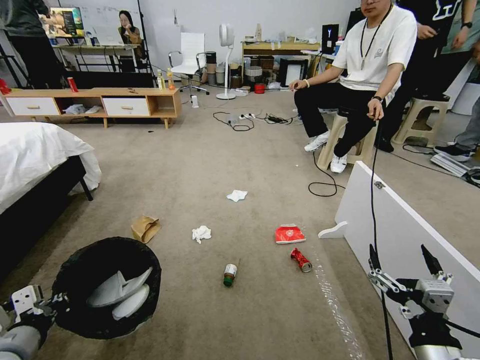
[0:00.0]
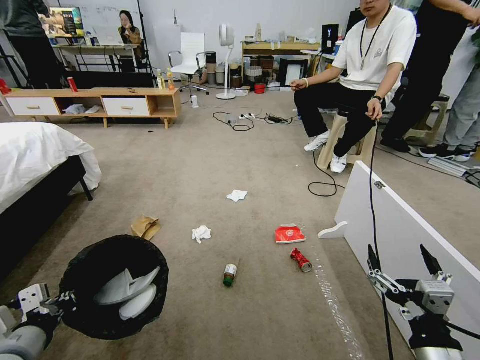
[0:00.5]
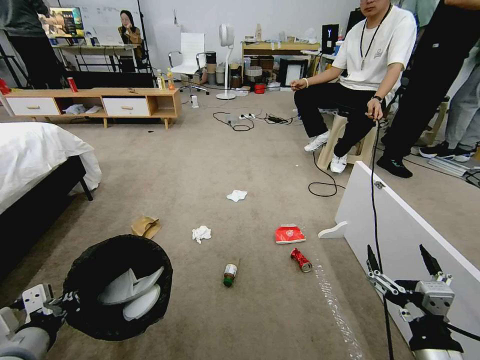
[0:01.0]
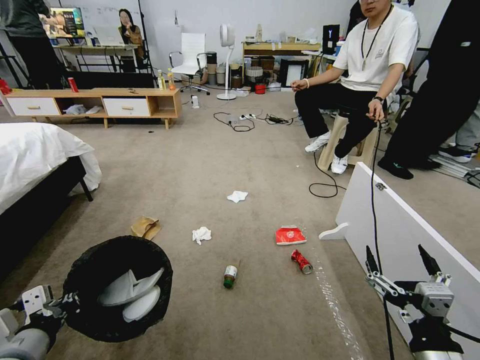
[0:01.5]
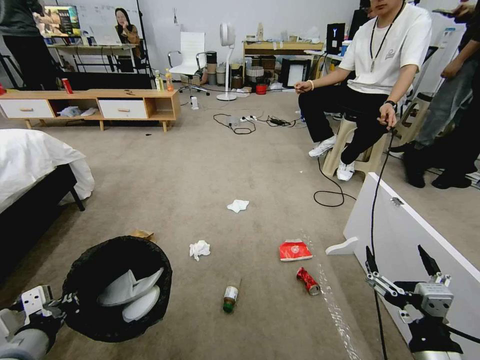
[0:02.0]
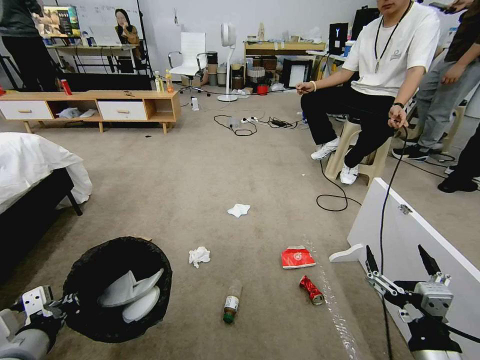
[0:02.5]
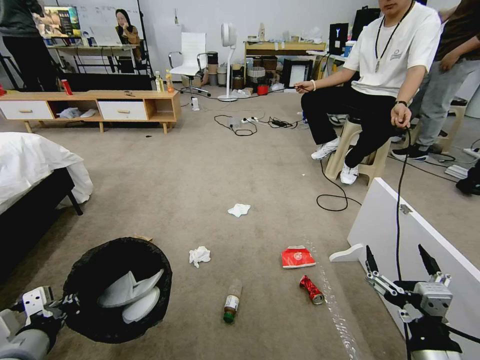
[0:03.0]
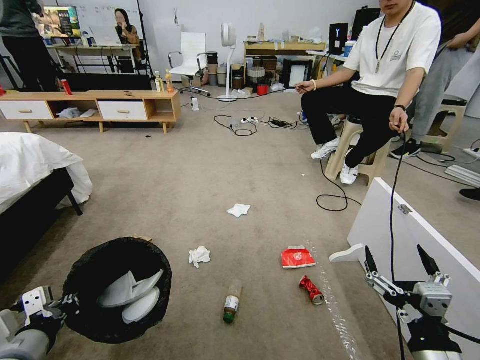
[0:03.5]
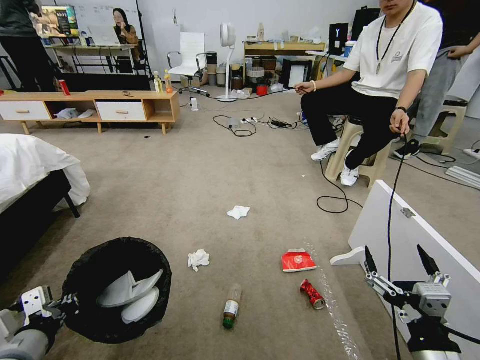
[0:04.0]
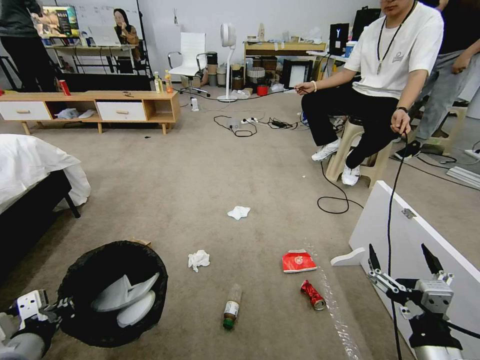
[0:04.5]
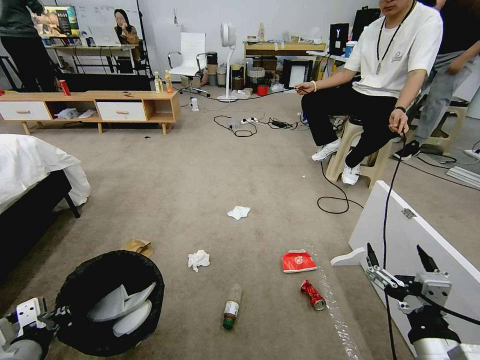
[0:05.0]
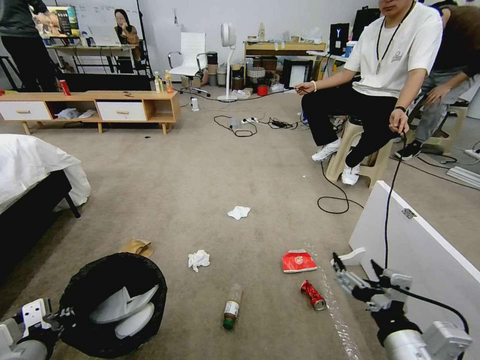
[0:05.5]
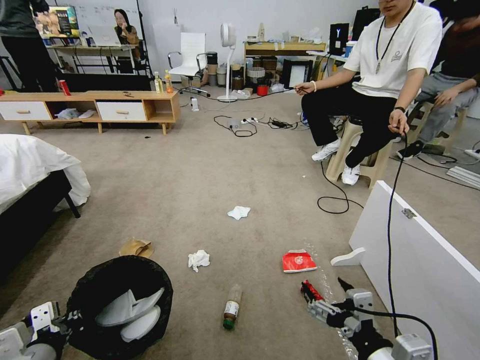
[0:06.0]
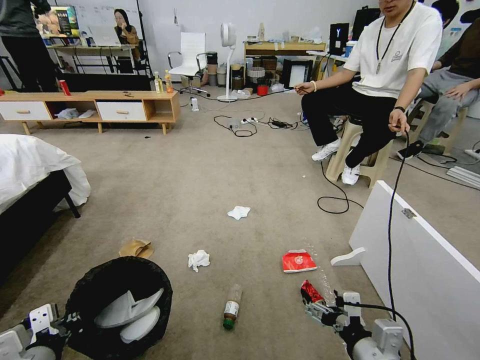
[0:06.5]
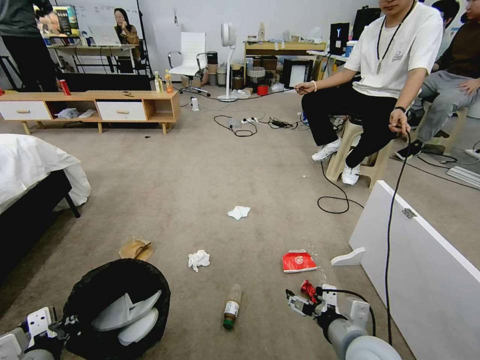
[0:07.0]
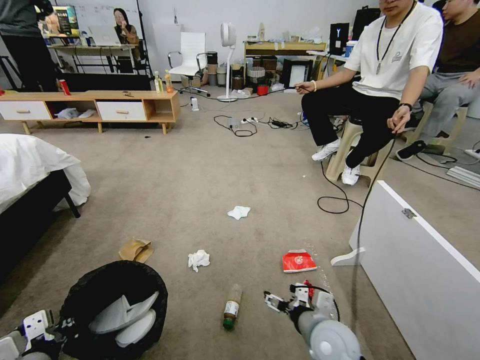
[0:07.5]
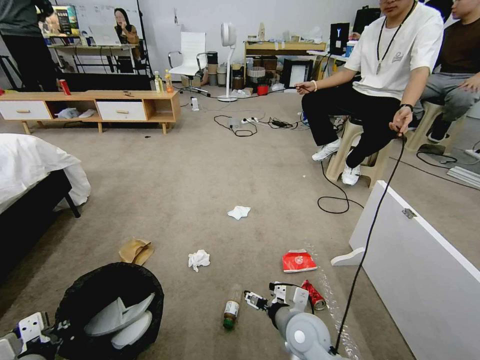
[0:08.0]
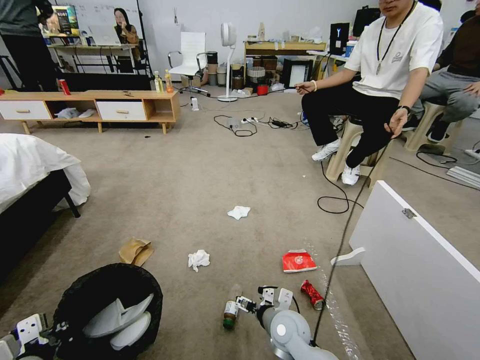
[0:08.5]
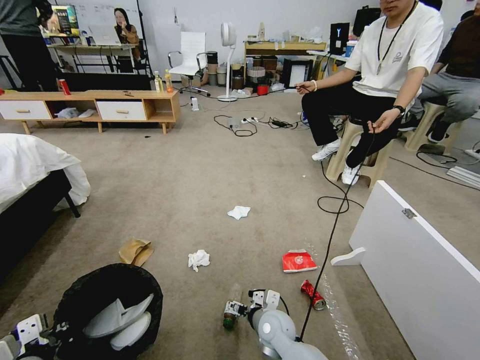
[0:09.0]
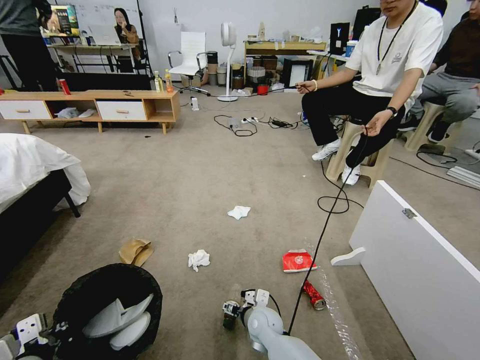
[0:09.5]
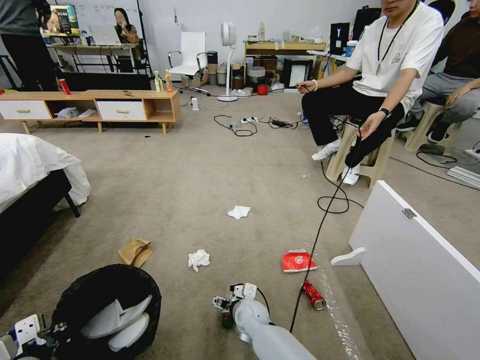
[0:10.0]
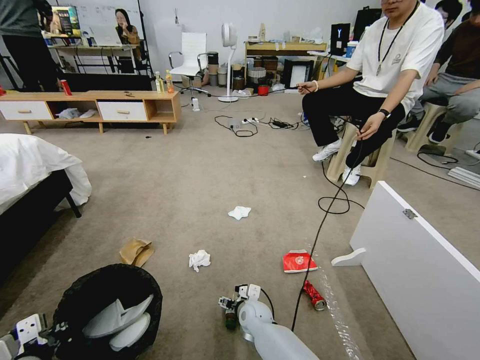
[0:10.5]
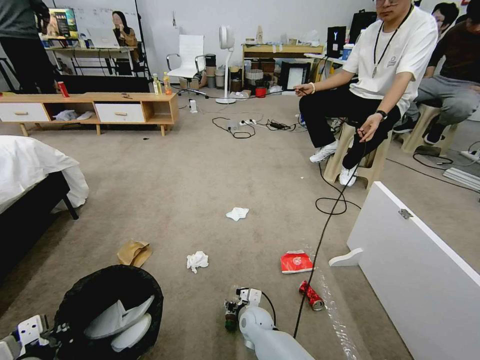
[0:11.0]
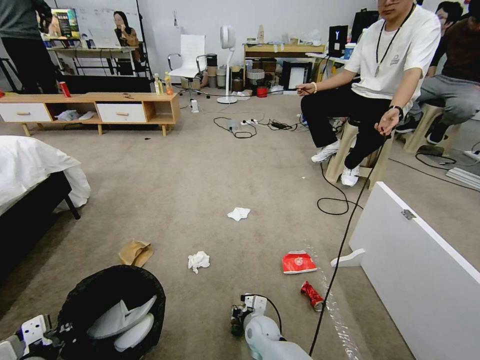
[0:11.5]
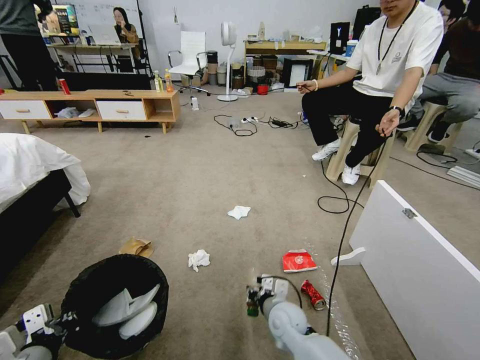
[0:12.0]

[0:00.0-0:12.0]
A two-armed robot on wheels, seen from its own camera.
Task of the whole recording: Pick up the trash bin and place the garbage on the floor into it.
0:04.0 to 0:06.0: The right gripper ends up about 5 cm from where it was; the left gripper closes its fingers.
0:06.0 to 0:08.0: The right gripper moves forward, downward and to the left, approximately 25 cm.
0:08.0 to 0:10.0: The right gripper moves downward, to the left and forward, some 20 cm.
0:10.0 to 0:12.0: The right gripper travels to the right by roughly 10 cm, and closes.

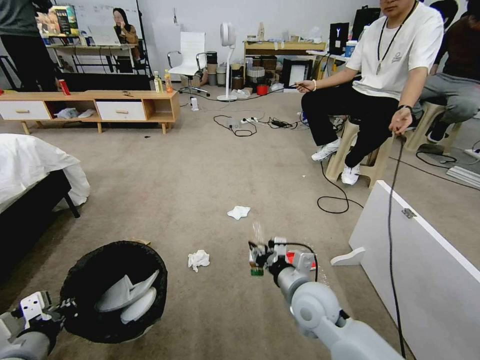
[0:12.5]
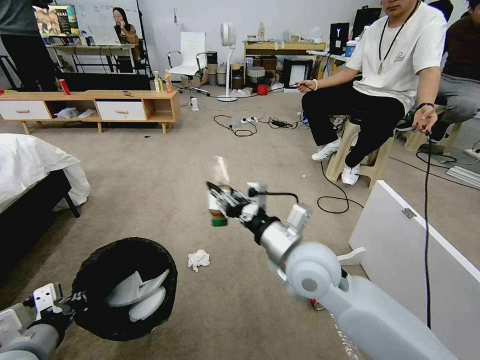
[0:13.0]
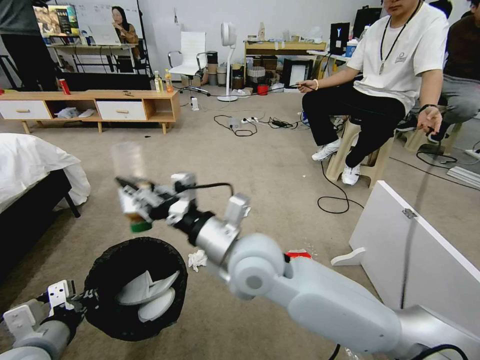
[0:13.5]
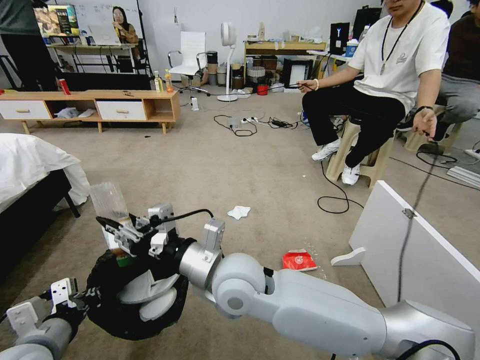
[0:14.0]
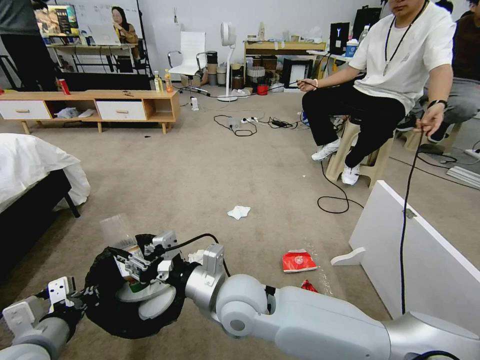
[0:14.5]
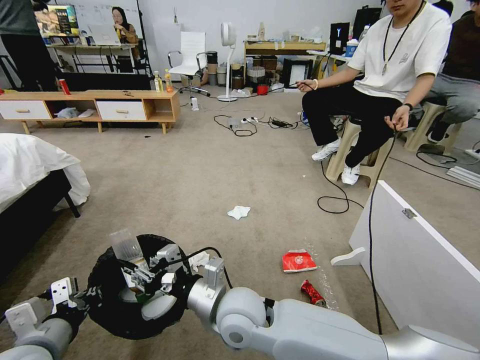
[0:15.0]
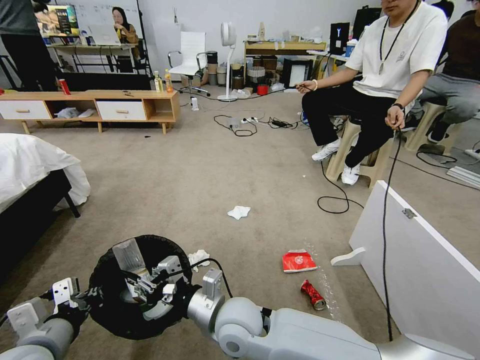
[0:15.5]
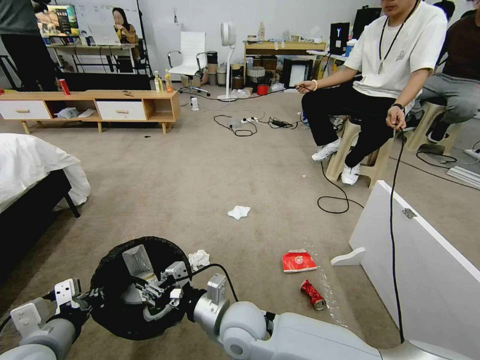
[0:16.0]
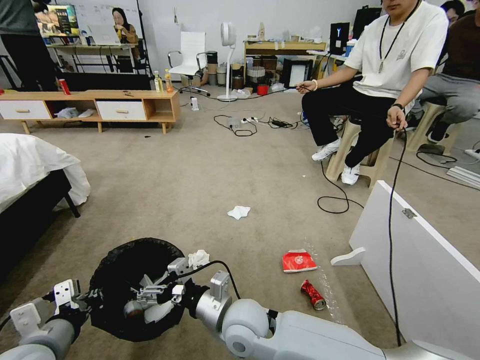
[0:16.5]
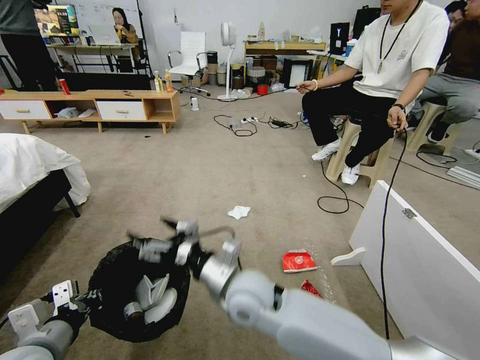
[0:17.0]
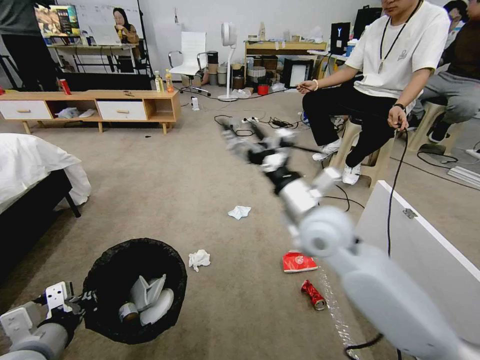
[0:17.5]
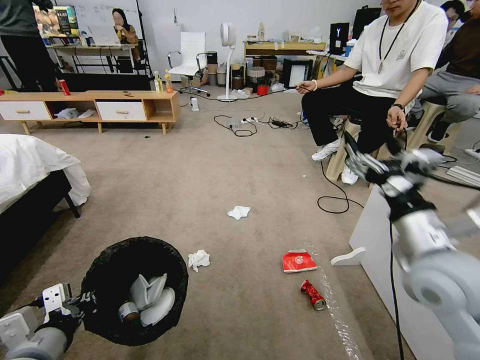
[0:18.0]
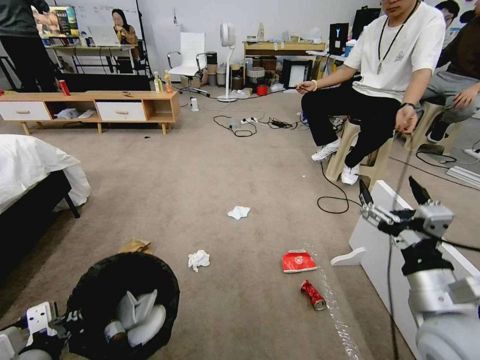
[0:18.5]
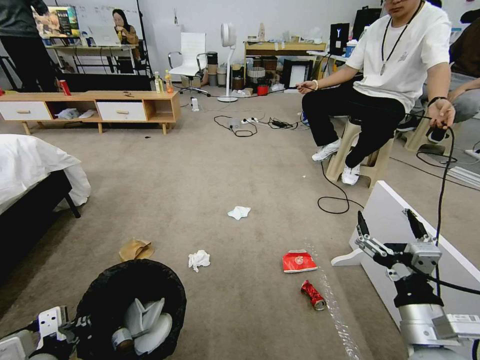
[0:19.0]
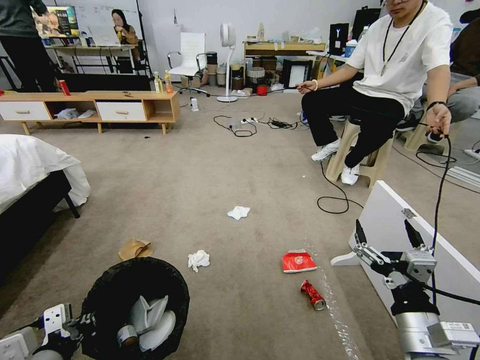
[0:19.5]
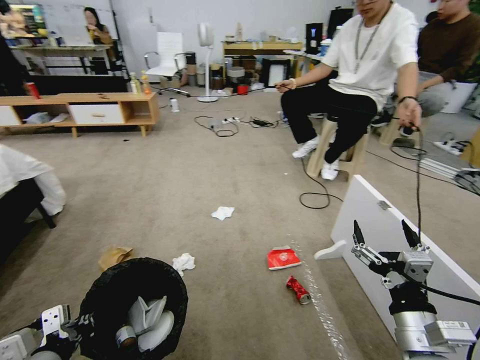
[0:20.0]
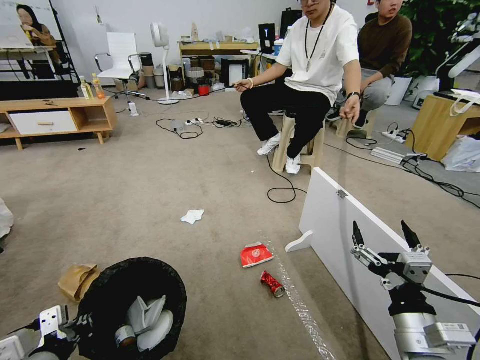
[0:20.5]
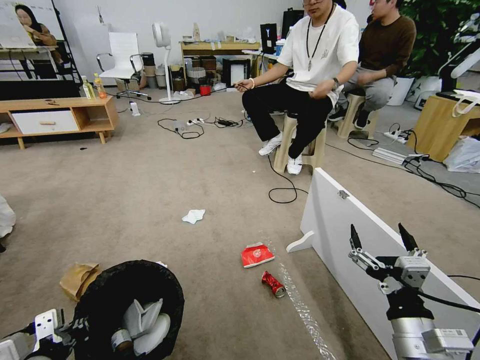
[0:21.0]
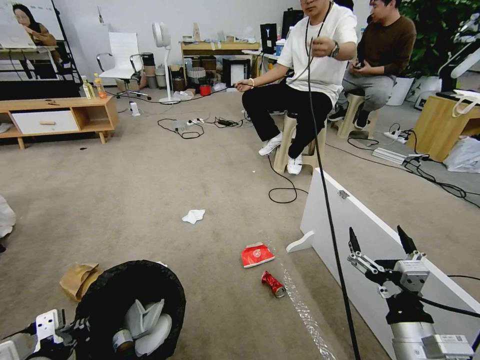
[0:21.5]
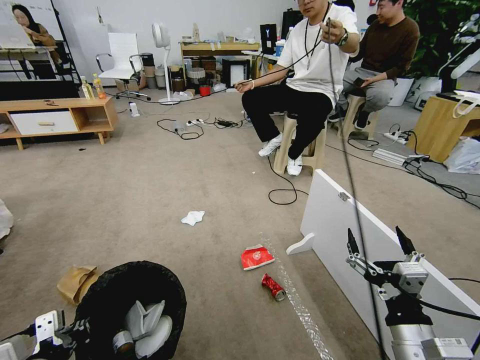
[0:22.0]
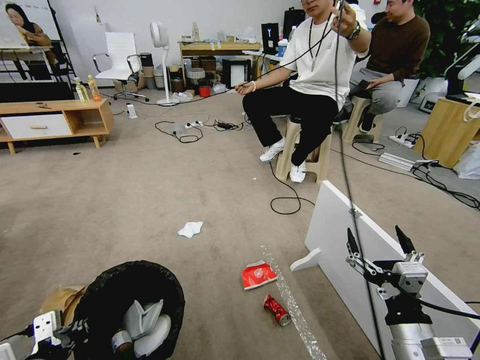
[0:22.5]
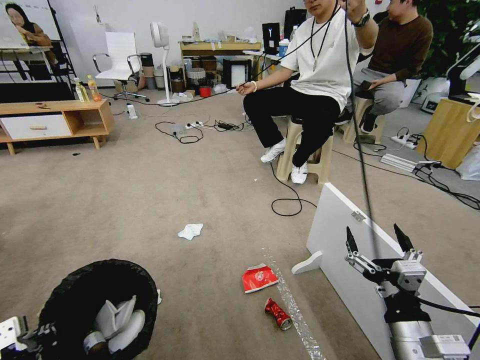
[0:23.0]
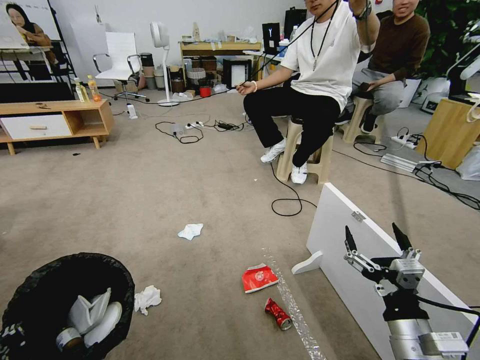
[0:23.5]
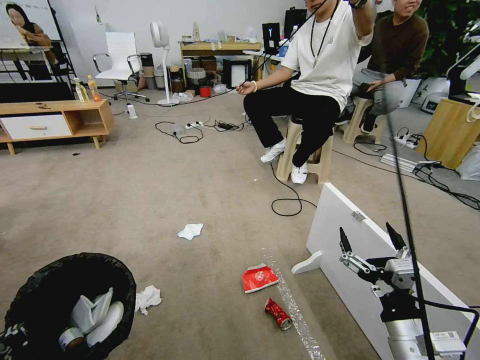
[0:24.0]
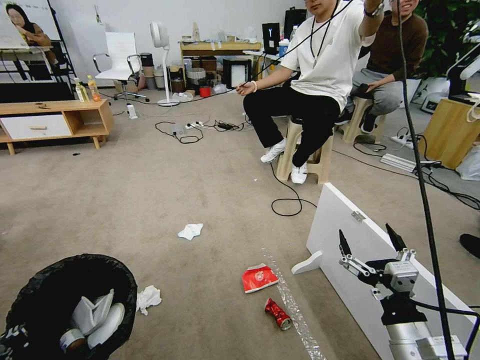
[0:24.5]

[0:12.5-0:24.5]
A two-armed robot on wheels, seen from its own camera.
Task of the whole recording: Pick up the trash bin and place the garbage on the floor into it.
0:12.5 to 0:14.5: The right gripper heads to the left and upward, covering some 20 cm.
0:14.5 to 0:16.5: The right gripper moves downward, approximately 10 cm, and opens.
0:16.5 to 0:18.5: The left gripper goes some 5 cm backward. The right gripper travels to the right and upward by some 30 cm.
0:18.5 to 0:20.5: The right gripper shifts about 5 cm downward.
0:22.5 to 0:24.5: The left gripper is displaced to the left by roughly 5 cm.

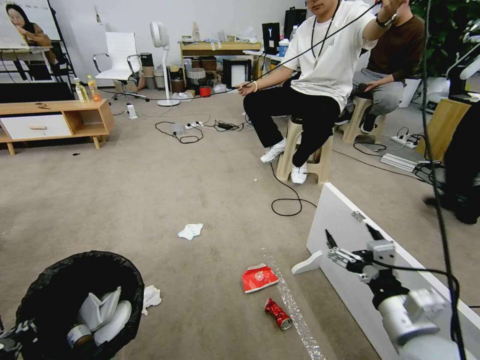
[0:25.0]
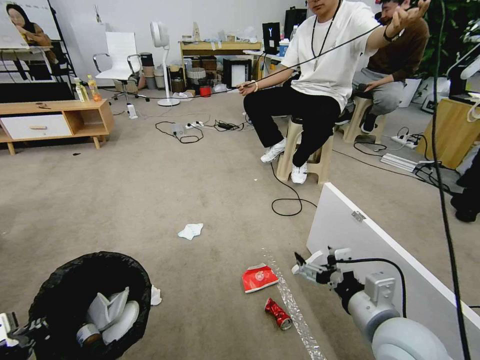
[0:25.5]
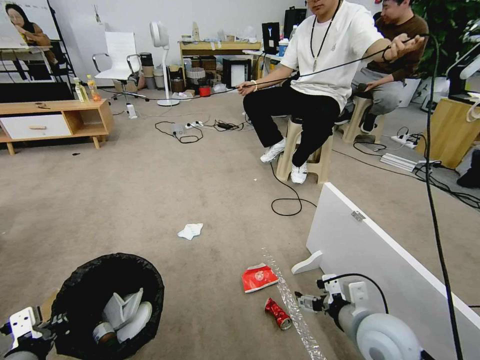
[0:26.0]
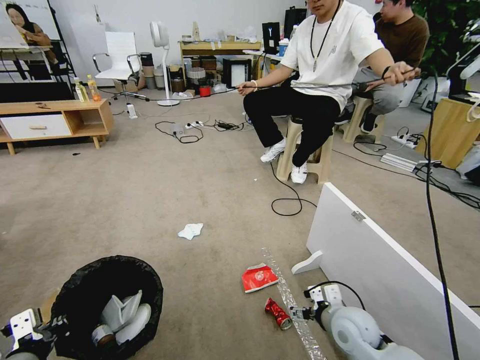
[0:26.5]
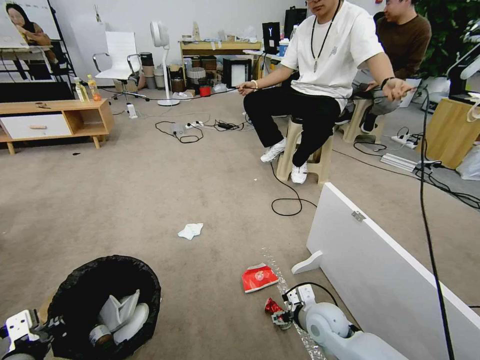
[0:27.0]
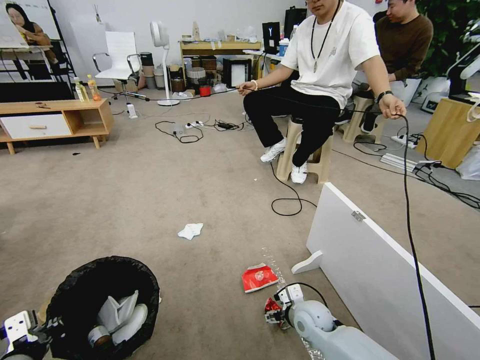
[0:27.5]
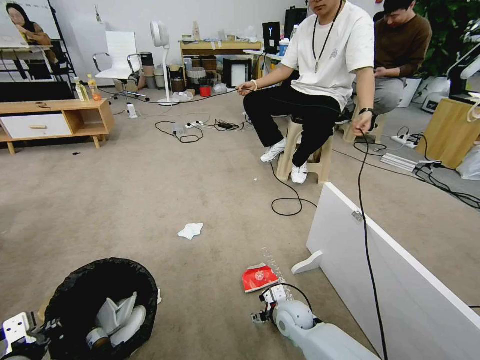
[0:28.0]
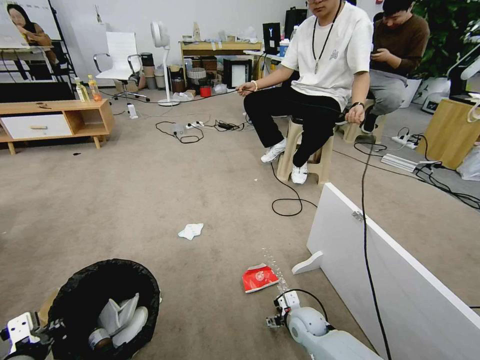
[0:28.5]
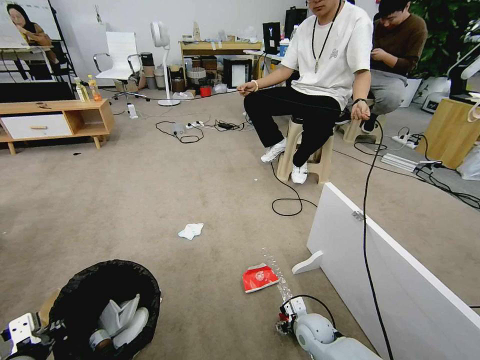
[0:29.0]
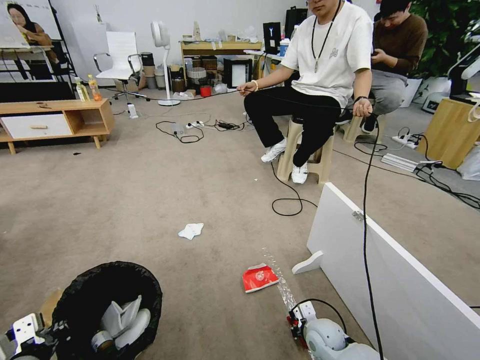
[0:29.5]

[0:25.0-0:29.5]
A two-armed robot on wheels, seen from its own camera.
Task of the whole recording: Pick up the trash bin and place the garbage on the floor into it.
0:25.0 to 0:27.0: The right gripper moves downward and forward, some 25 cm.
0:27.0 to 0:29.5: The right gripper goes some 10 cm downward, and closes its fingers.
